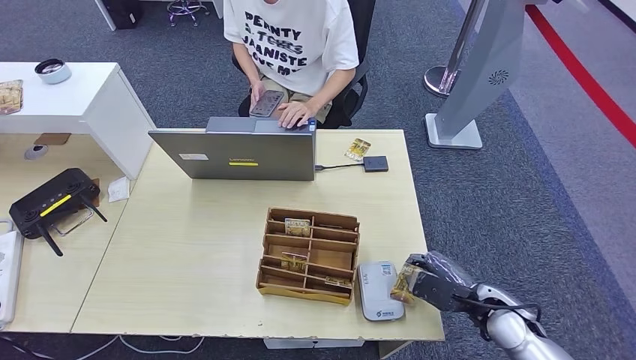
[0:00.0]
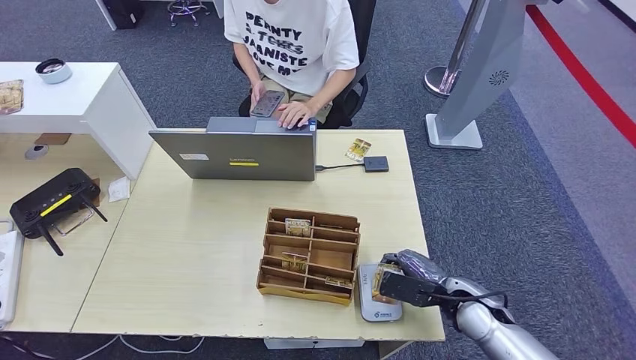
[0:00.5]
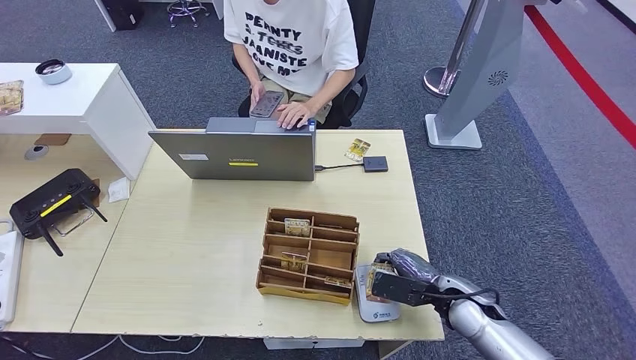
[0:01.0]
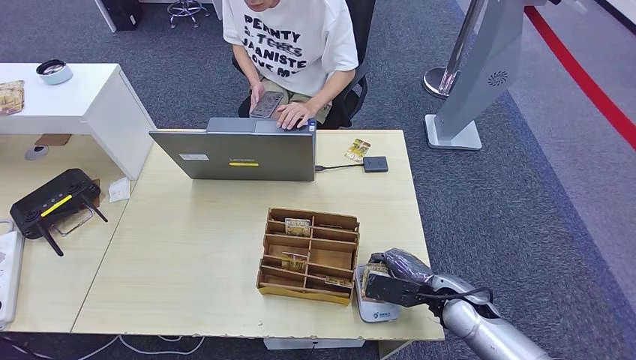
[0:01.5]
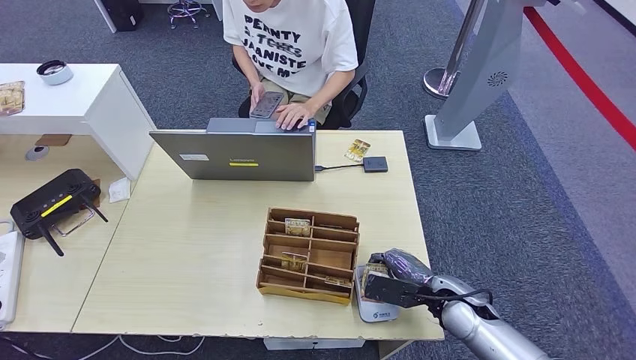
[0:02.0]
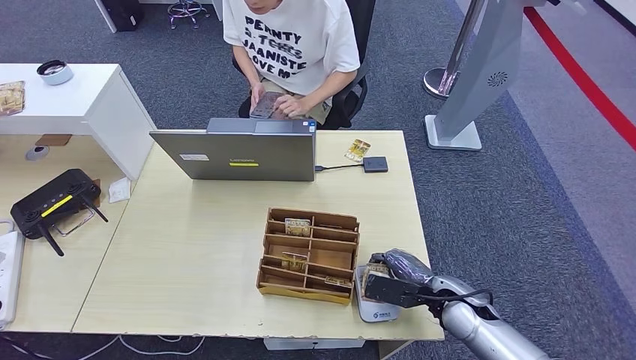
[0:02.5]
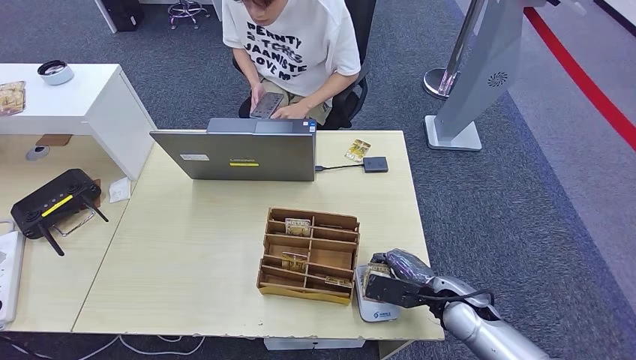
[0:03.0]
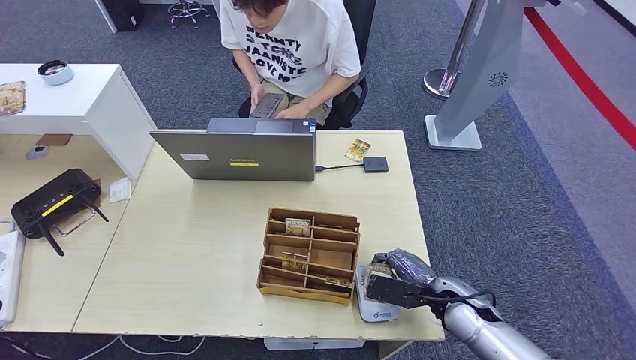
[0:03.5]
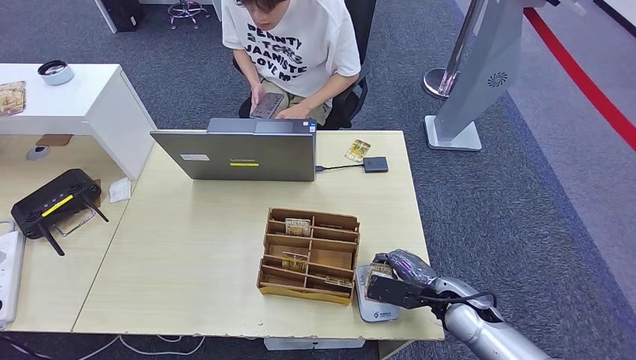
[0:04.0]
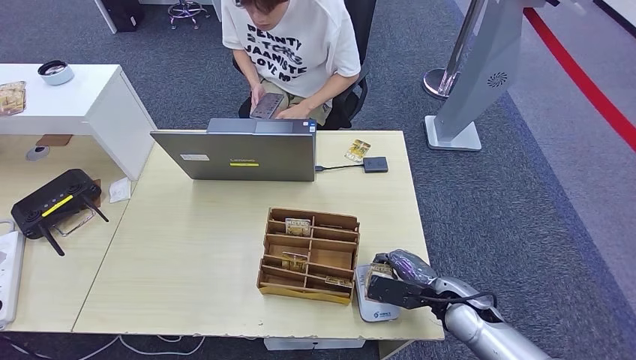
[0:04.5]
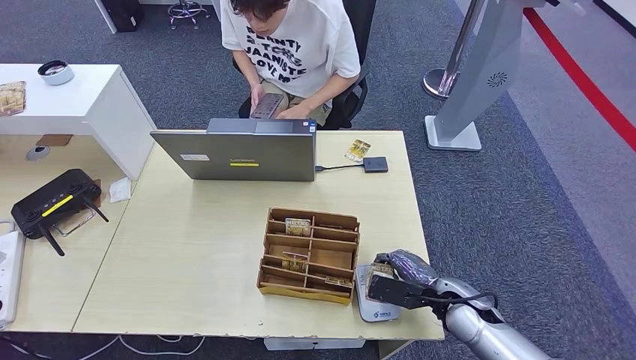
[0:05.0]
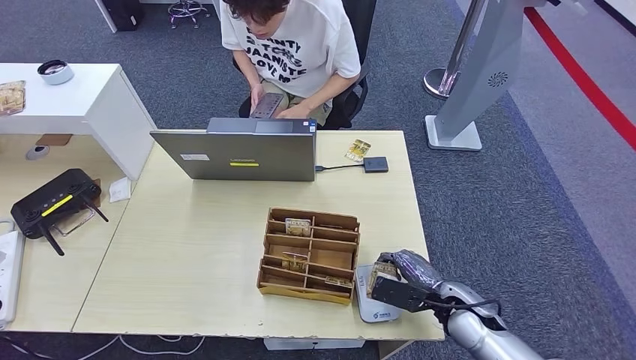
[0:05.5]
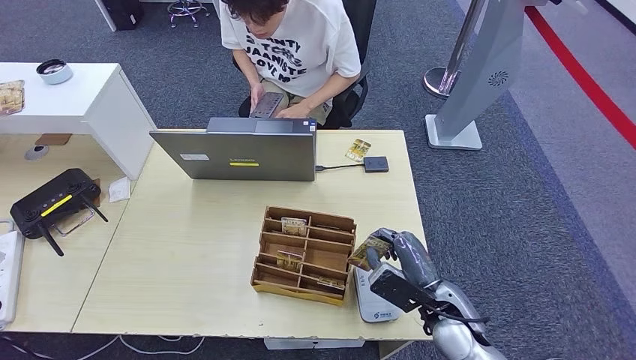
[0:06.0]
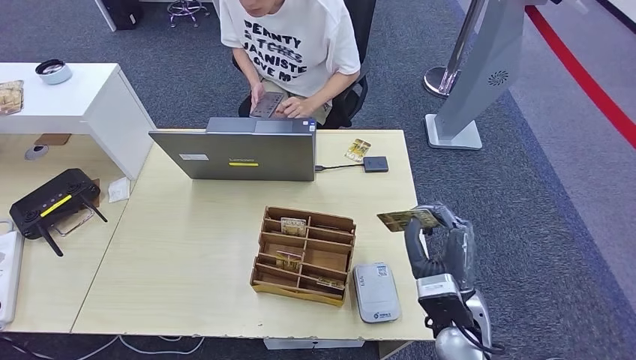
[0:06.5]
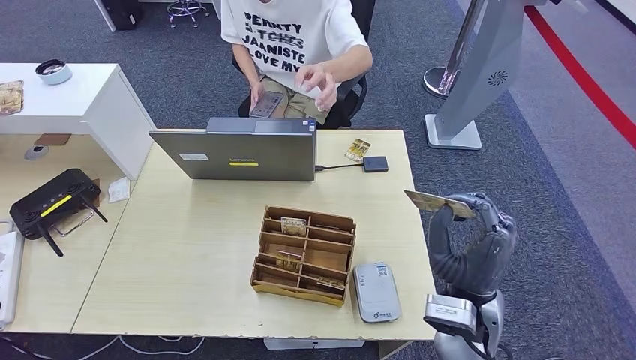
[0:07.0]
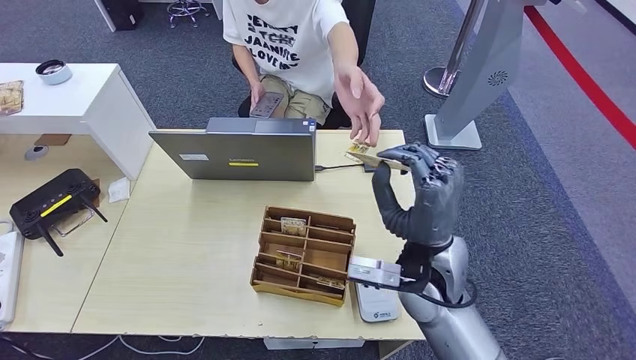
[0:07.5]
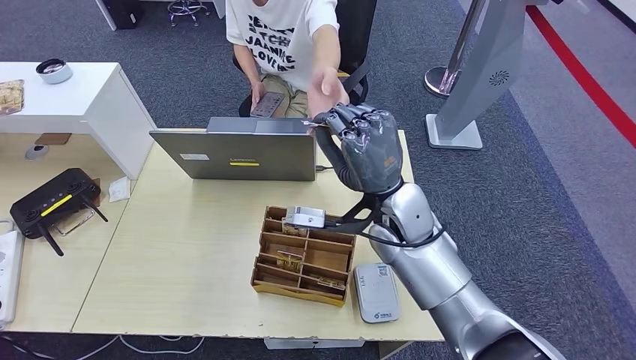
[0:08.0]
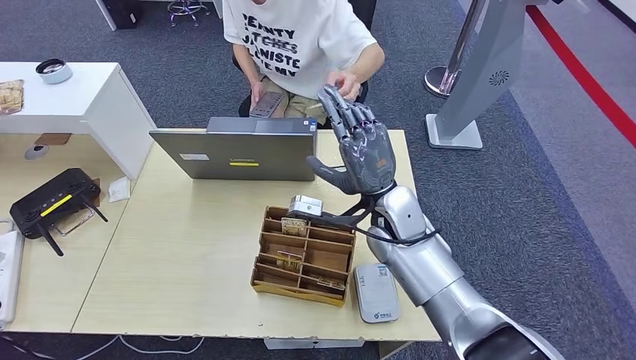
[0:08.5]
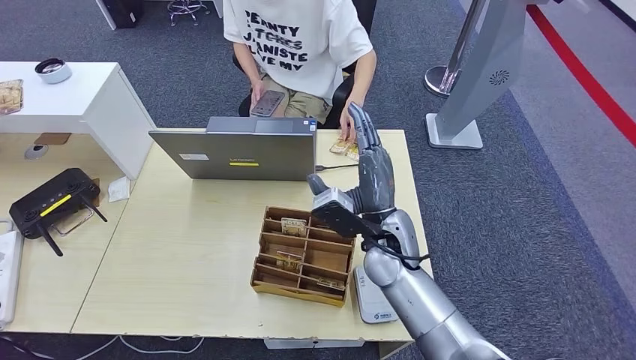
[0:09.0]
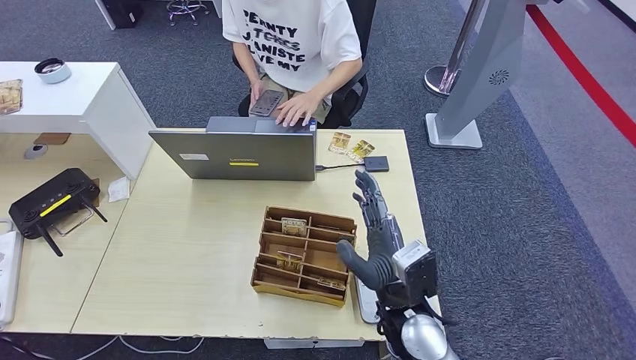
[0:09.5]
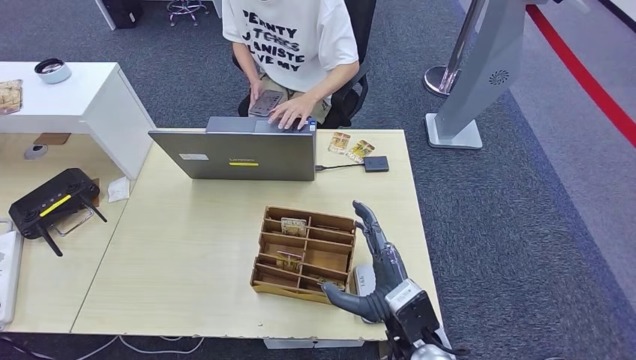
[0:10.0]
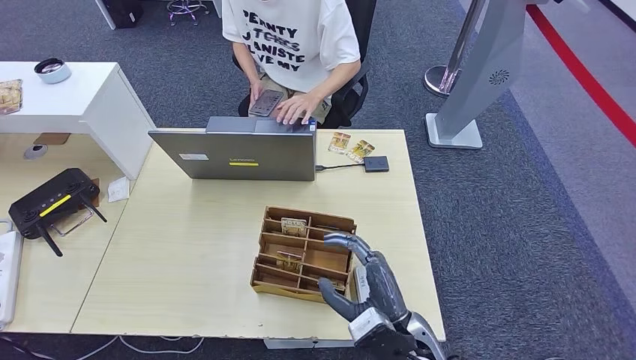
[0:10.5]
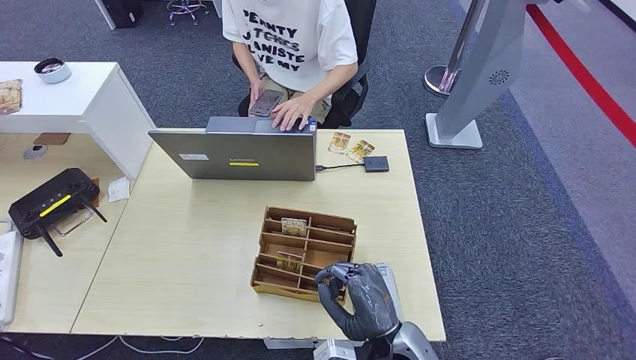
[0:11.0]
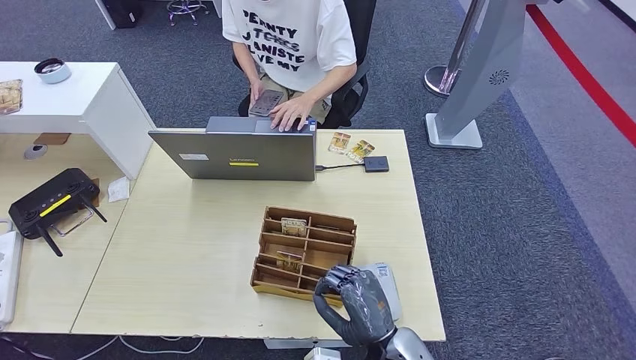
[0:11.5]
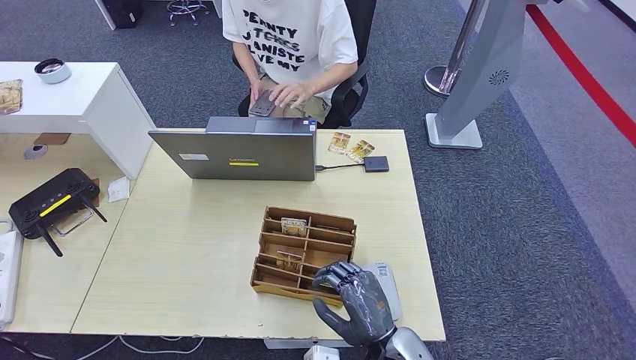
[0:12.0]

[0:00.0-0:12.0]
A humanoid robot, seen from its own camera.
Step, 0:00.0 to 0:09.0: Hand the ID card to the person.
0:00.0 to 0:02.0: The right hand goes approximately 5 cm to the left.
0:02.0 to 0:04.0: The two hands keep their place.
0:04.0 to 0:06.0: The right hand ends up approximately 5 cm from where it was.
0:06.0 to 0:08.0: The right hand moves upward, forward and to the left, some 20 cm, while the left hand goes roughly 5 cm forward.
0:08.0 to 0:10.0: The right hand shifts approximately 20 cm backward and downward.
0:10.0 to 0:12.0: The right hand moves downward, roughly 5 cm.

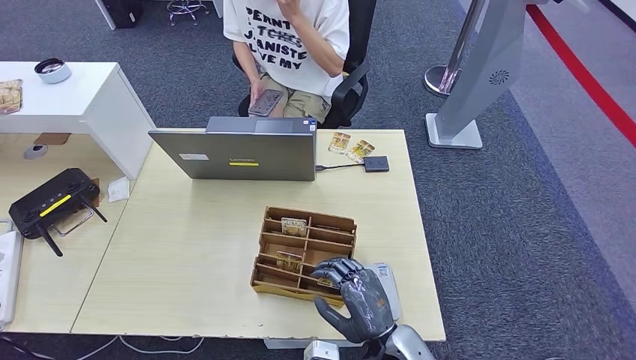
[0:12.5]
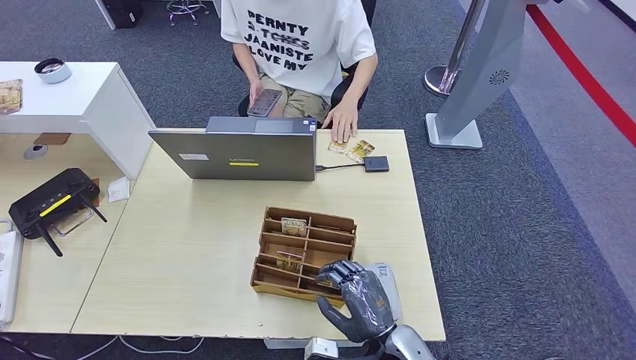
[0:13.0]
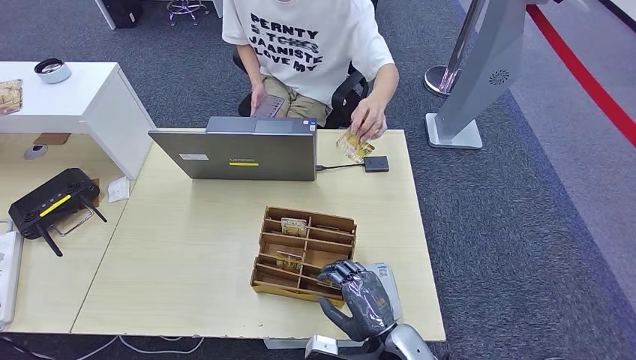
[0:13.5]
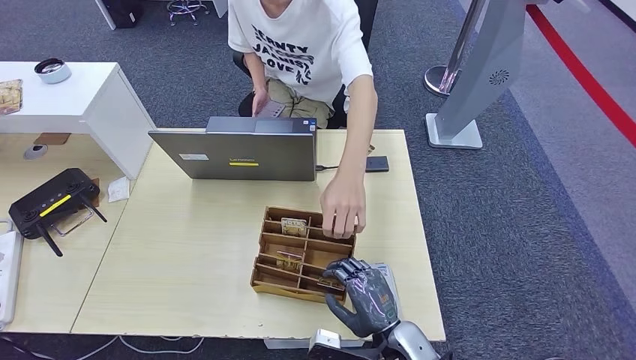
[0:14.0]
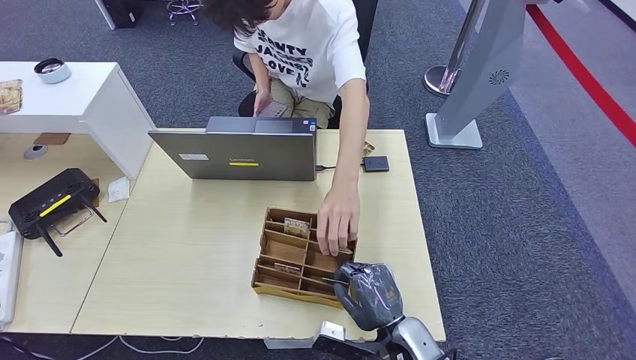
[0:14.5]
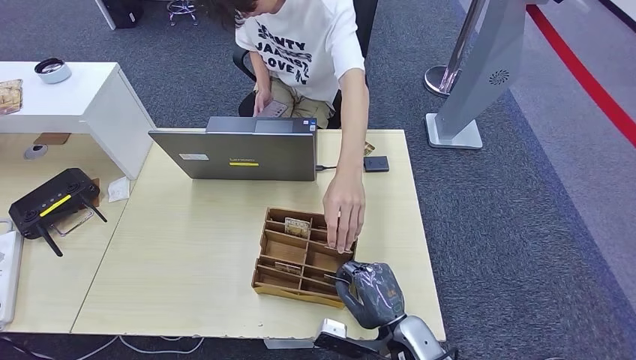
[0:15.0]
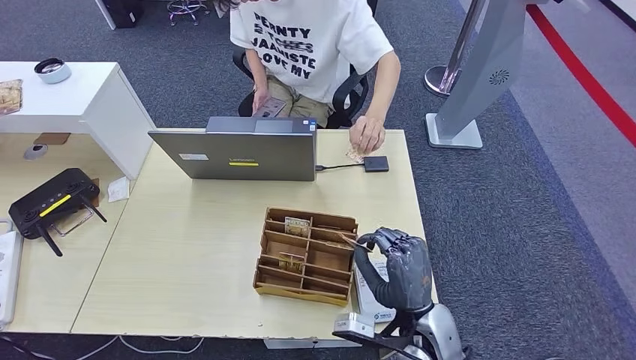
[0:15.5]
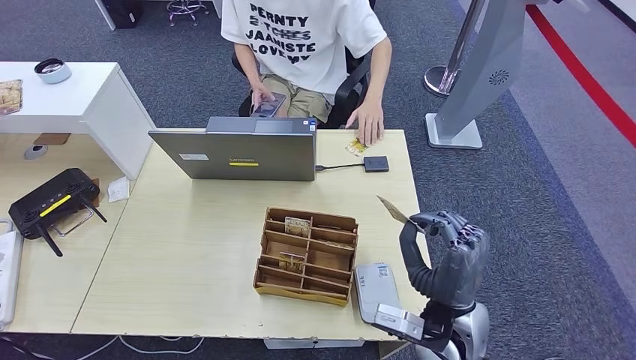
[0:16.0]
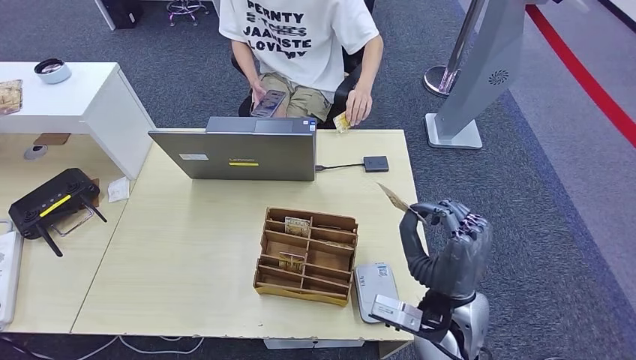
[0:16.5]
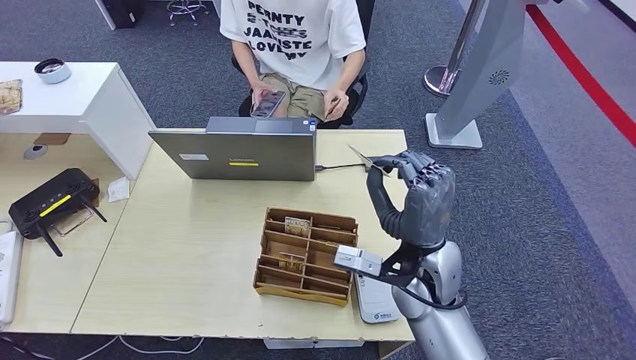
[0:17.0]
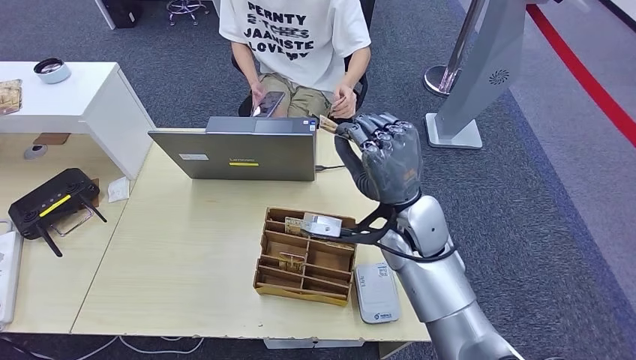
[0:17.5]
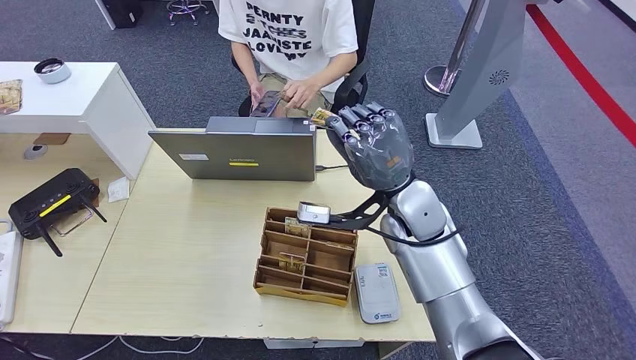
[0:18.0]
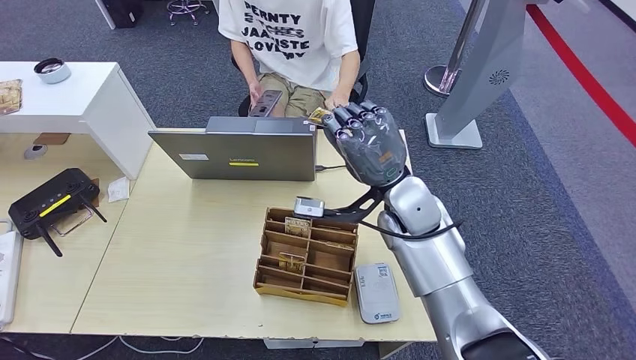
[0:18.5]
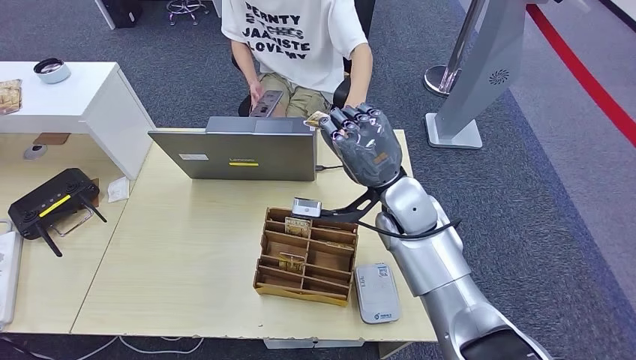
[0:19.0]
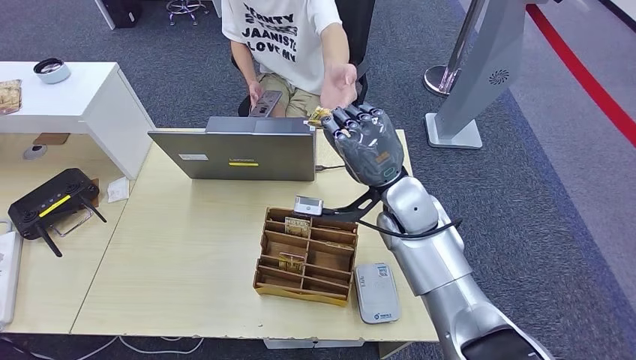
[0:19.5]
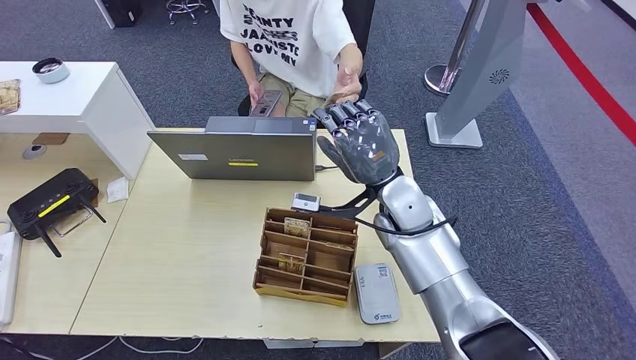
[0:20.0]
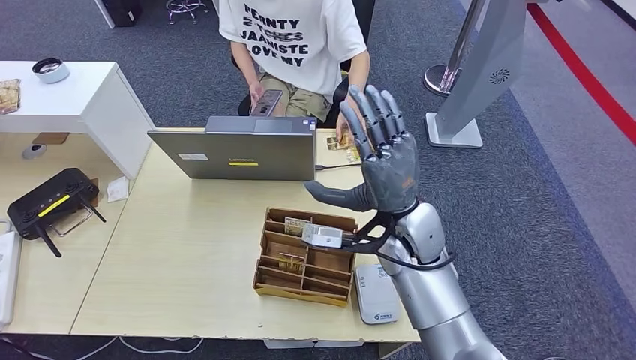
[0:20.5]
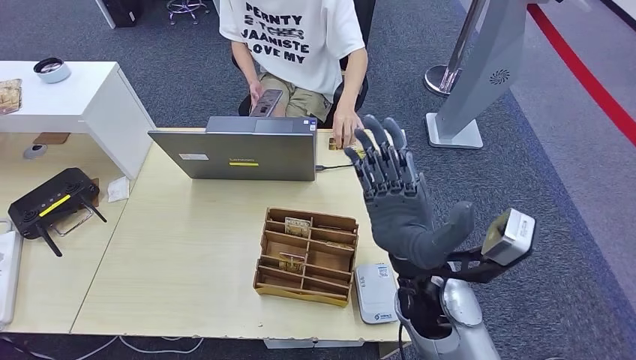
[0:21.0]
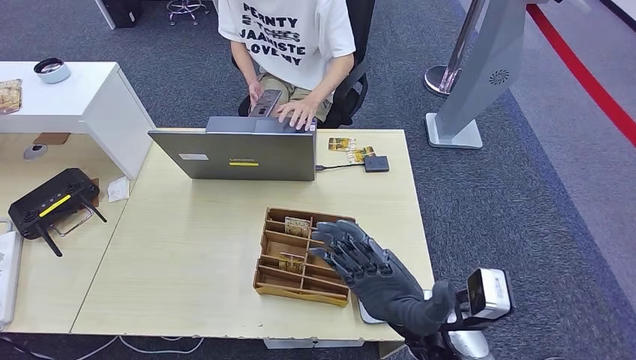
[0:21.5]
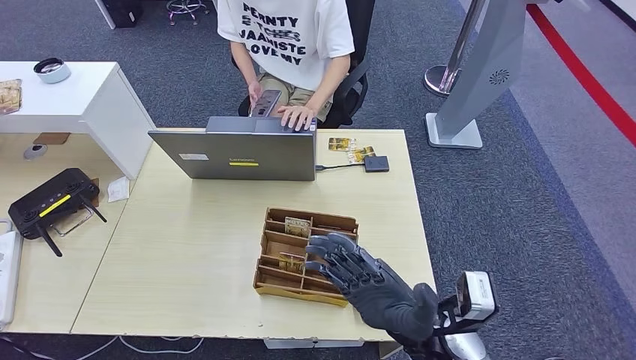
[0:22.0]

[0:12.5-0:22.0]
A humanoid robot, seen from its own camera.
Step, 0:12.5 to 0:15.0: Pick up the room key from the key card box.
Step, 0:15.5 to 0:22.0: Hand the room key to the person.
0:12.5 to 0:14.5: The hands move only a little.
0:14.5 to 0:16.5: The right hand goes approximately 15 cm upward.
0:16.5 to 0:18.0: The right hand shifts roughly 15 cm forward and upward.
0:18.0 to 0:20.0: The hands make only small movements.
0:20.0 to 0:22.0: The right hand travels backward and downward by approximately 20 cm.
